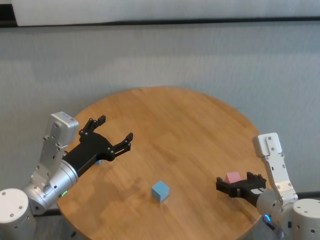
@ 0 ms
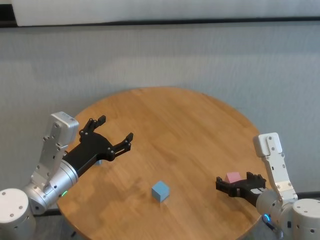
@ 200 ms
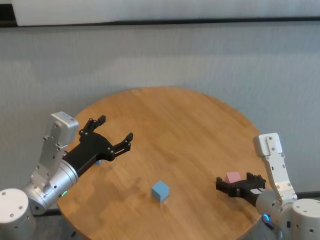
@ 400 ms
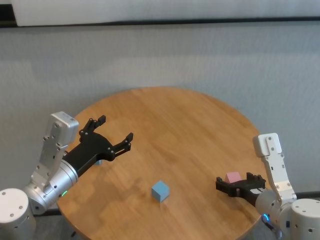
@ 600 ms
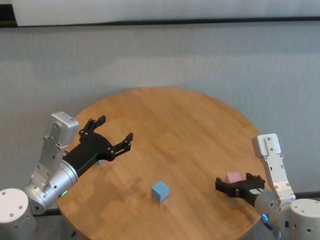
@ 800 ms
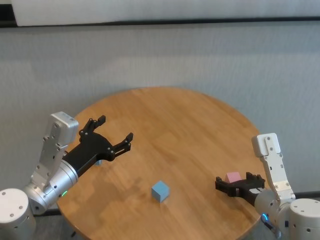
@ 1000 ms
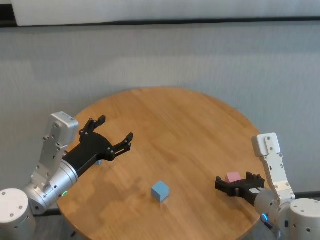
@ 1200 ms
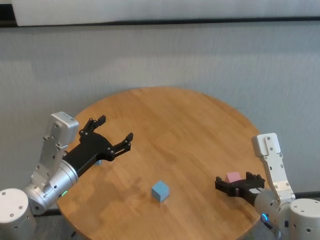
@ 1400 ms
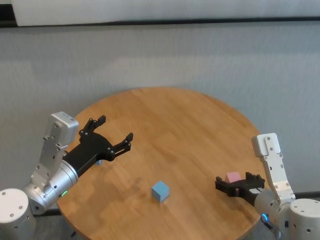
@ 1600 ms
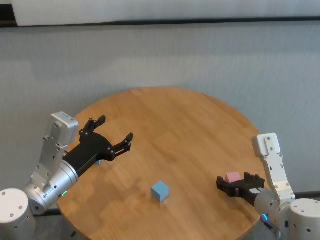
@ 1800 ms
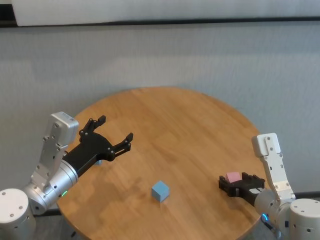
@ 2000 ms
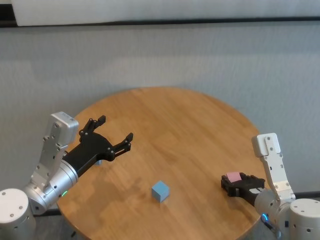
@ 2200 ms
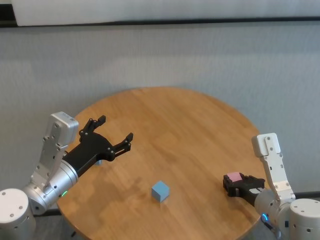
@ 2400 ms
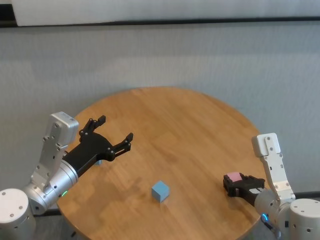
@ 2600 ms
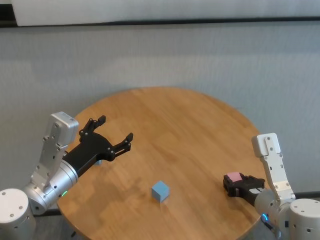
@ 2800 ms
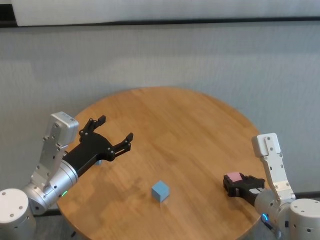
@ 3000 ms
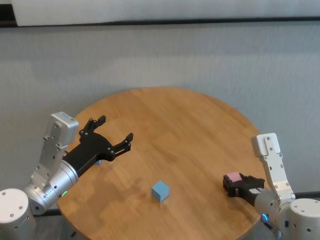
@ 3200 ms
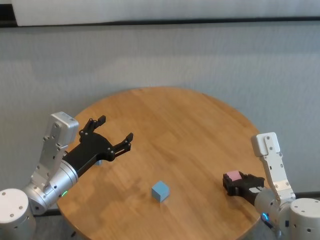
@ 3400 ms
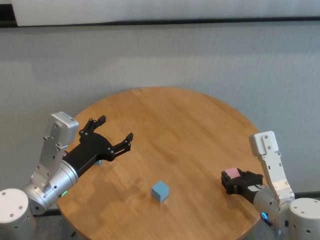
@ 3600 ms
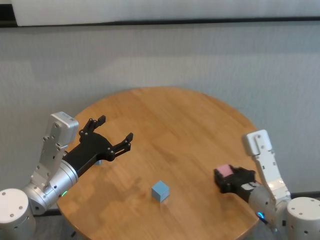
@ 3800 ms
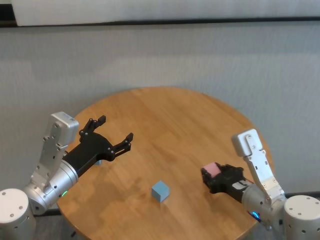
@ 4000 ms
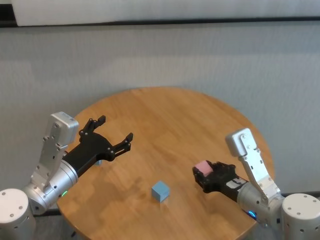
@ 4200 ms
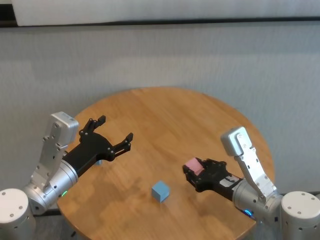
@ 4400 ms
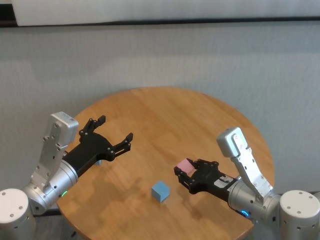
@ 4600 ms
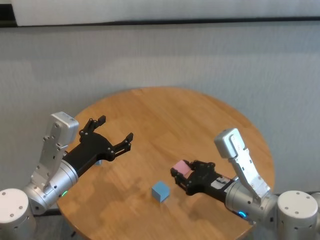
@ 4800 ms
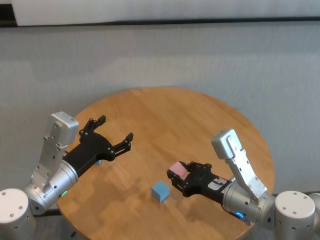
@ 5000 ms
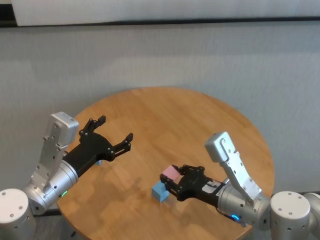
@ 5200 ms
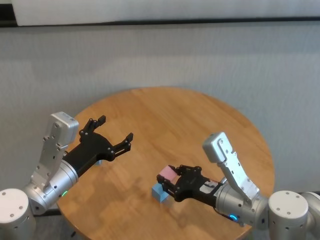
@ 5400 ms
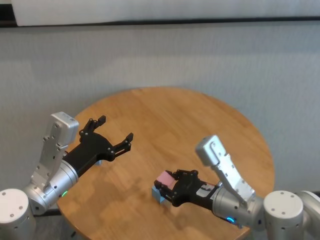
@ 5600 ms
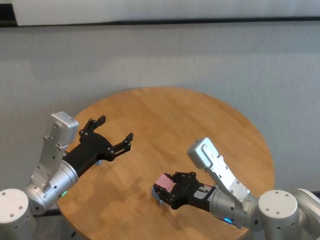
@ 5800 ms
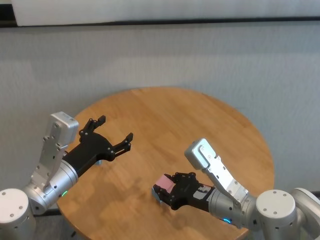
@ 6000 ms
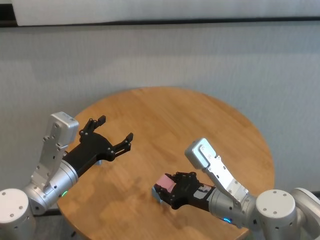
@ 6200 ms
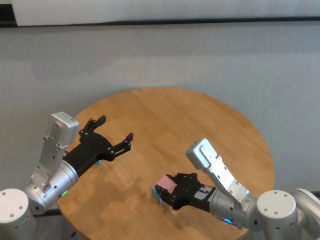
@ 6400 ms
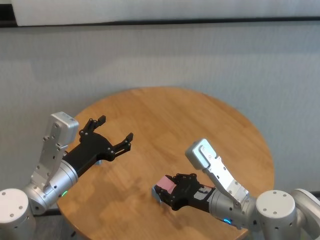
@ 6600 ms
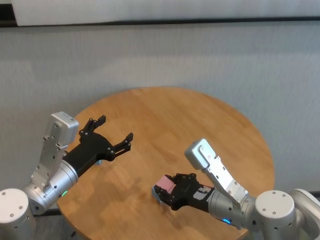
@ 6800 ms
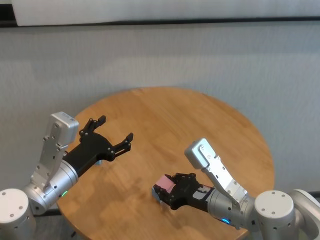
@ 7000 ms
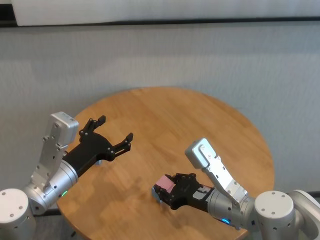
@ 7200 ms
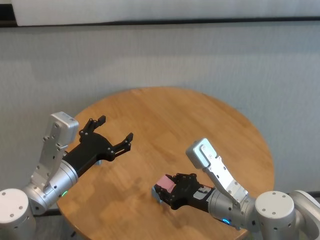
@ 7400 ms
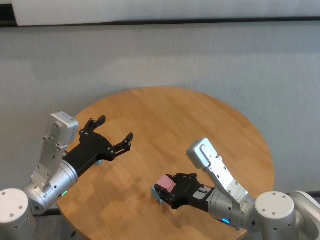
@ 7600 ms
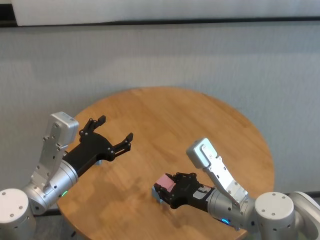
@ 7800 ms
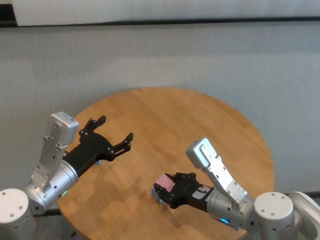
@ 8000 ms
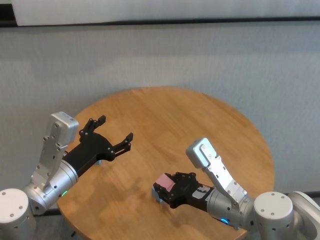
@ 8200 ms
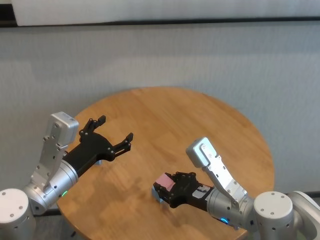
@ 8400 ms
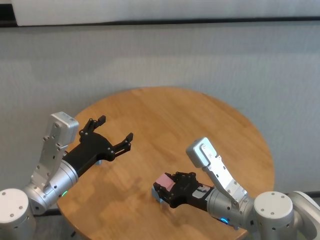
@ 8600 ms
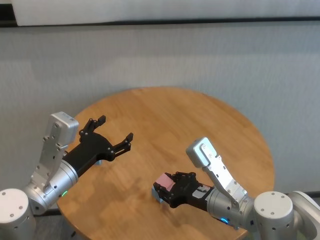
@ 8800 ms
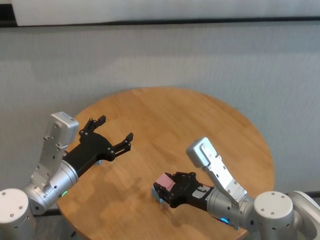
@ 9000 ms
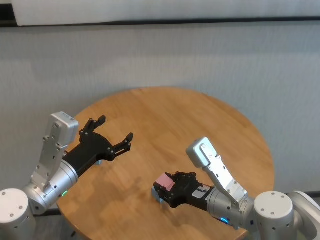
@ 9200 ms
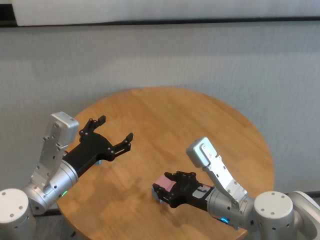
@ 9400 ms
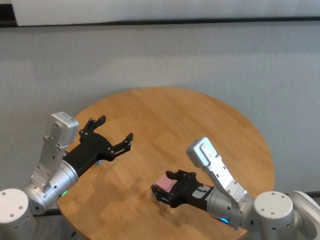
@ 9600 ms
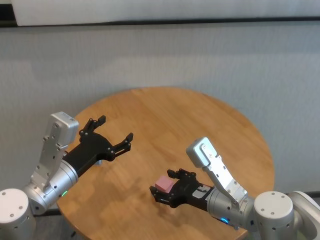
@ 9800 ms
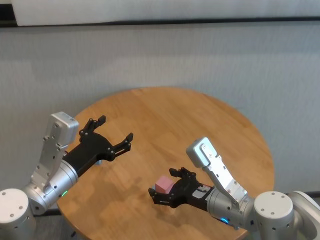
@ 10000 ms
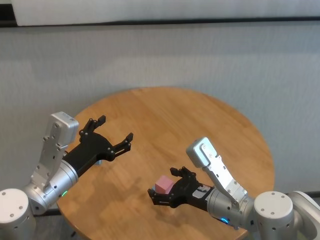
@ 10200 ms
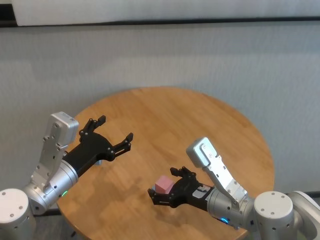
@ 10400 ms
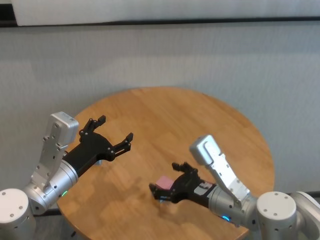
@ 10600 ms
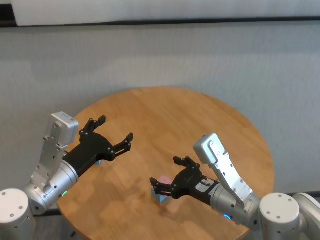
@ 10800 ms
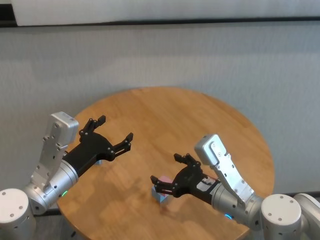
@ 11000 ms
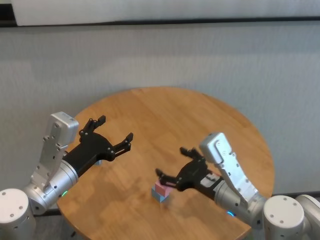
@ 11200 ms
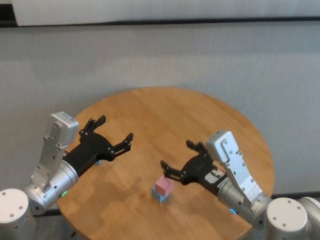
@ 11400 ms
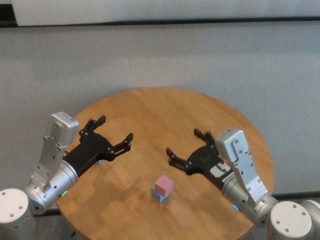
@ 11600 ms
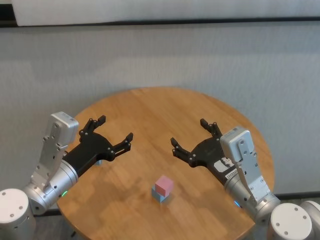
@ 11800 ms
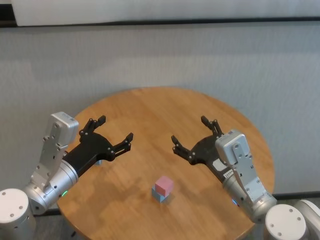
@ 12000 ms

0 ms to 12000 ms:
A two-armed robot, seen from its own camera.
Task of the whole recording: stack building blocks on the table.
Step, 2600 ms to 9800 ms: Place the pink building block on the blue building blocks with right gripper.

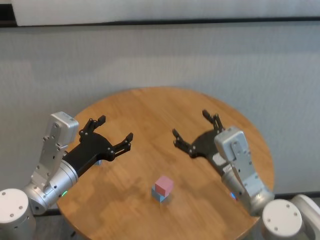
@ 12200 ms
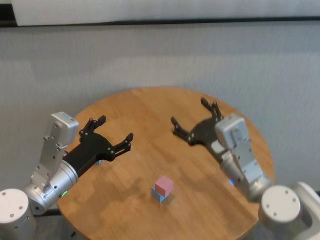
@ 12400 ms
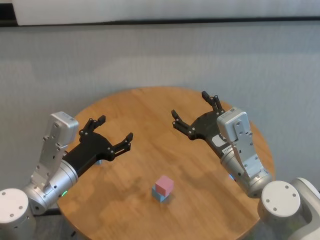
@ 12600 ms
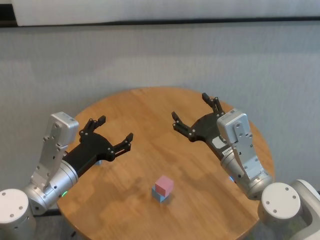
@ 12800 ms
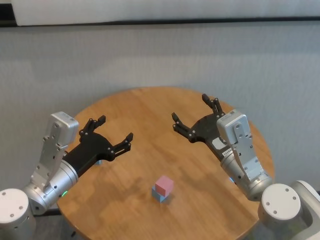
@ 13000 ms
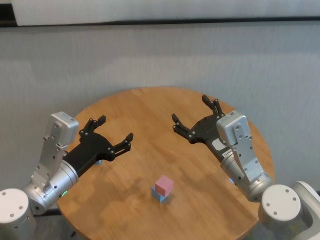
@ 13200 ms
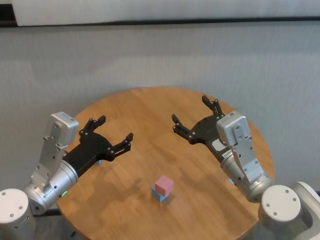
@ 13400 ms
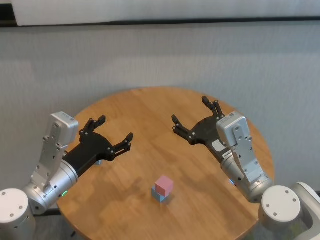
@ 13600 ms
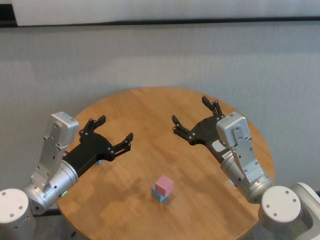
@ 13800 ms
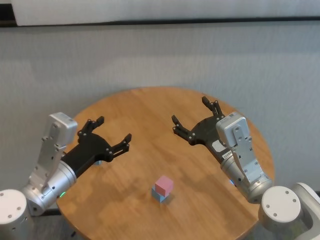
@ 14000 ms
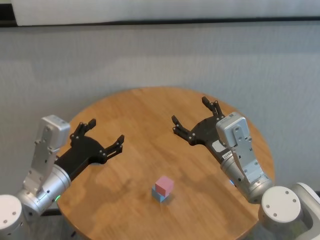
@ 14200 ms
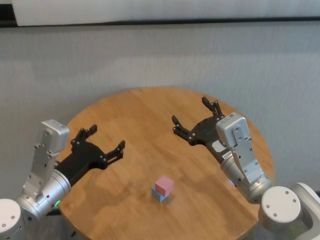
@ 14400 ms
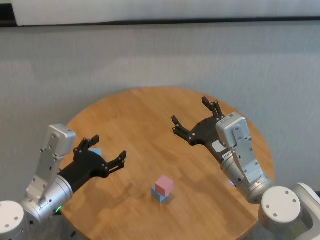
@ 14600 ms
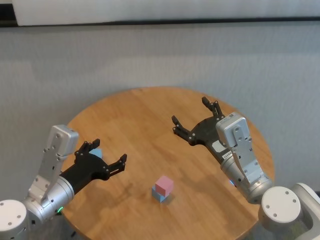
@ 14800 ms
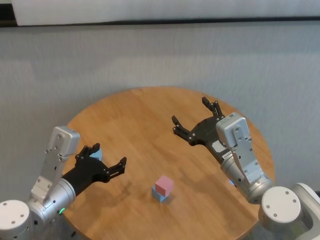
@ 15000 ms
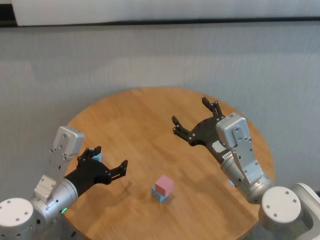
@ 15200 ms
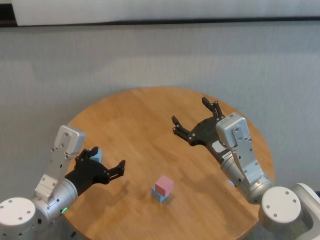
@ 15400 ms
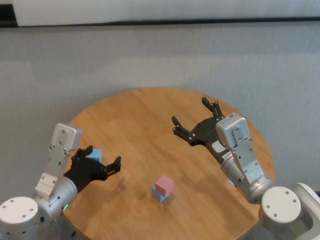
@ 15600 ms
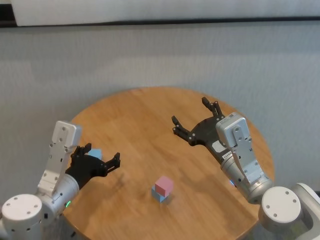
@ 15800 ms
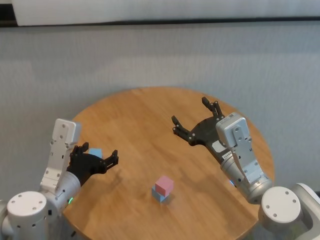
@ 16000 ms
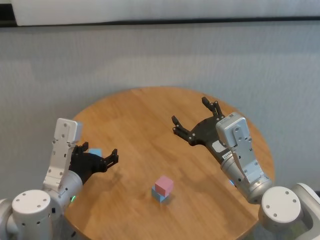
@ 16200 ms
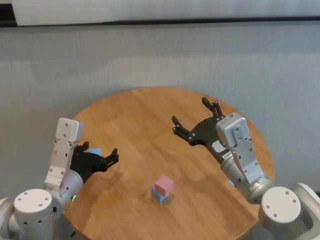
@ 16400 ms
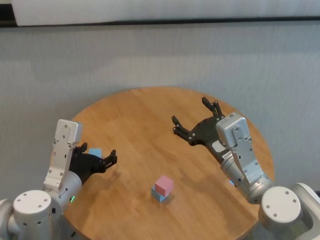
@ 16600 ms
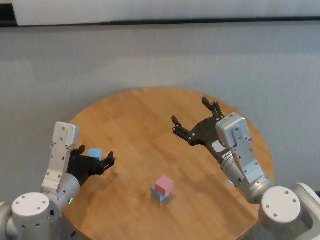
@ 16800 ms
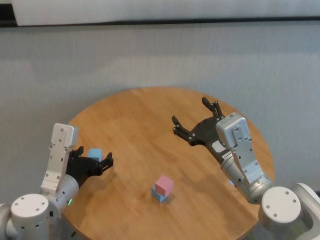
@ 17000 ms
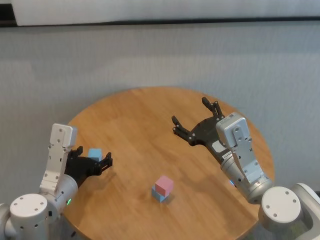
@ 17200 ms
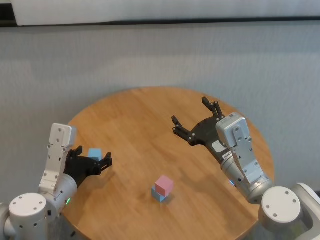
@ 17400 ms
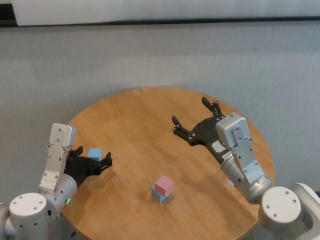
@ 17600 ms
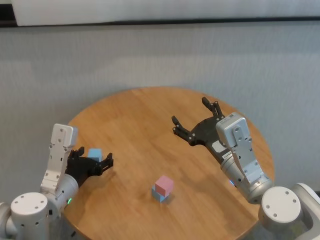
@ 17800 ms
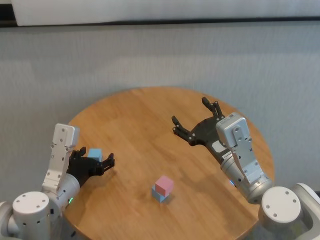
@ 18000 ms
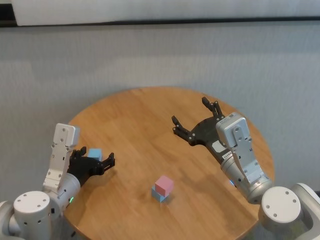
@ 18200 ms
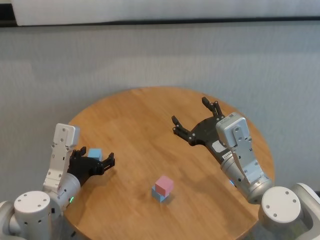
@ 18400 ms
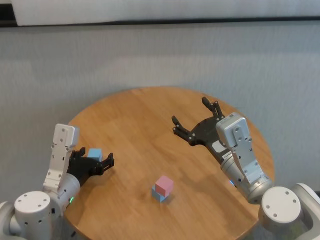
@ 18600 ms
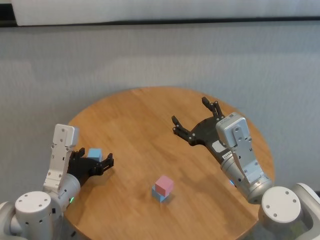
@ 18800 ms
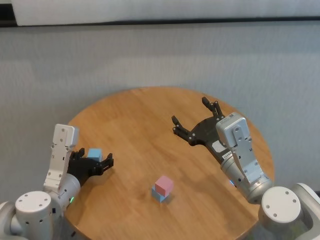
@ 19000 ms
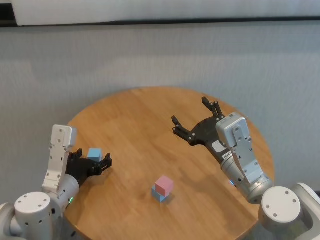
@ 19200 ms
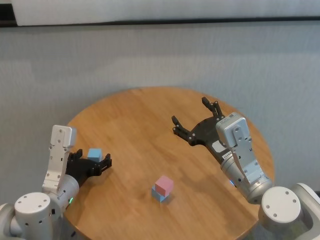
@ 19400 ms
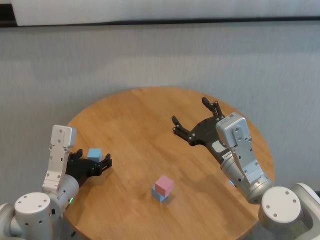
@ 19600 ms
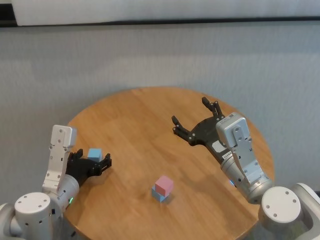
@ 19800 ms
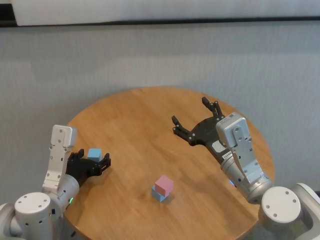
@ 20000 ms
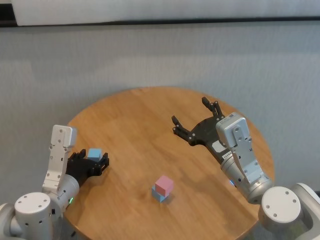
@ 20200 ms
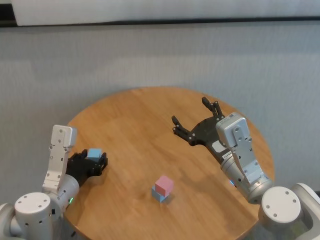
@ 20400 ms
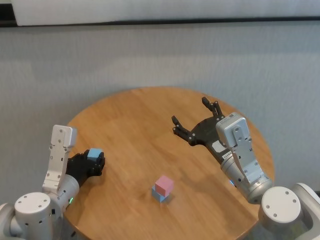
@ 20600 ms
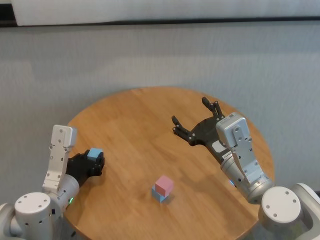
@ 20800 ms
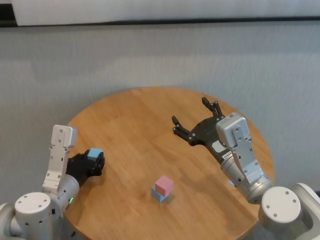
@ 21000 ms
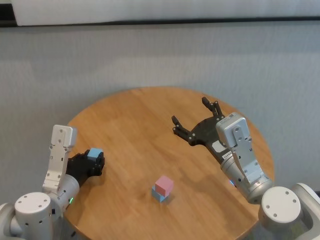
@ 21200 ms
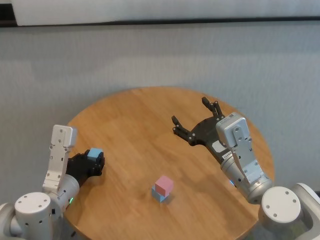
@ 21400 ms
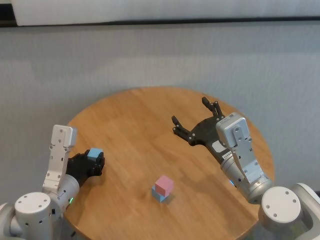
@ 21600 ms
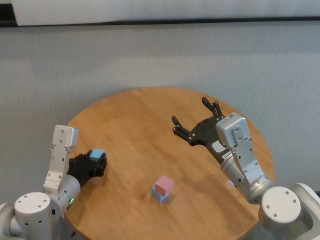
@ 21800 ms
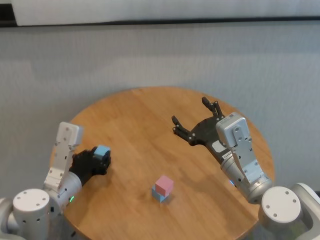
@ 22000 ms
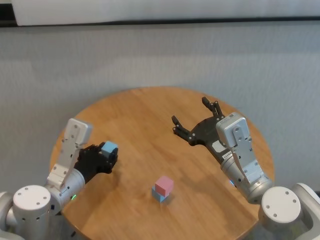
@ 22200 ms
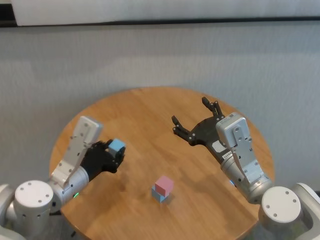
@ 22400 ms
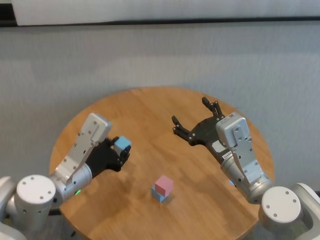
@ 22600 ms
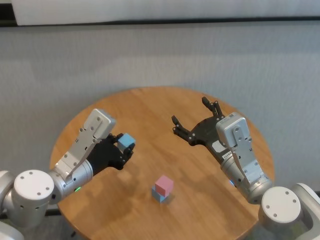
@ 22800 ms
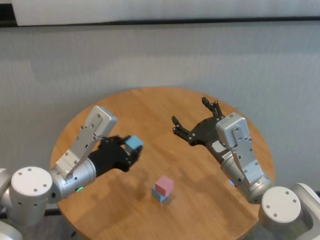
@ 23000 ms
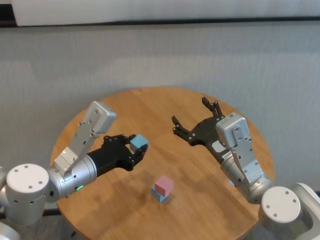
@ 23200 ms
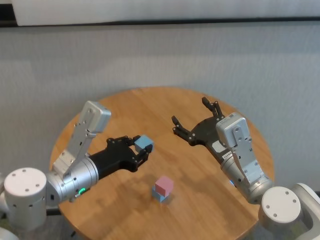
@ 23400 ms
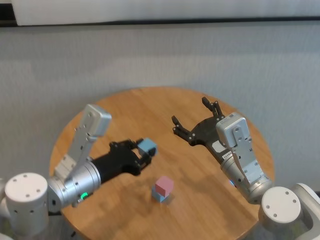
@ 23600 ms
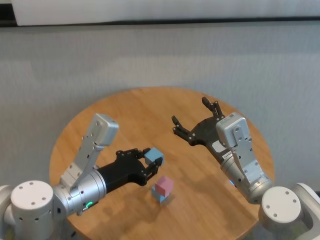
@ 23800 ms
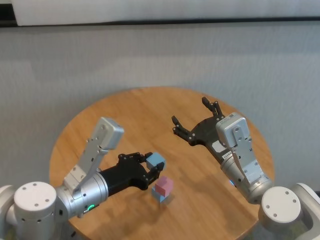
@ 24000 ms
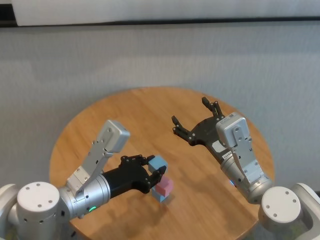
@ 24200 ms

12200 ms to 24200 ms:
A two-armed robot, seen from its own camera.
Task of the whole recording: stack building blocks on the table.
Step, 12200 ms to 20600 ms: Grasp the blue building block with left gripper.
